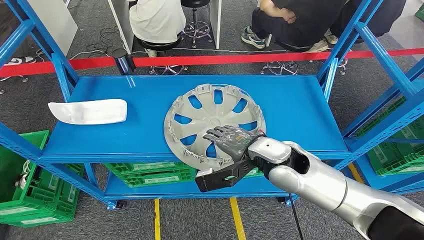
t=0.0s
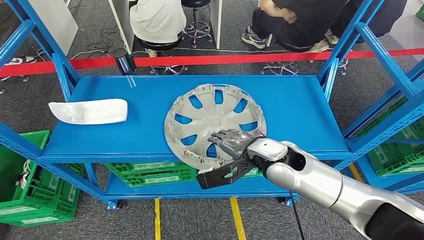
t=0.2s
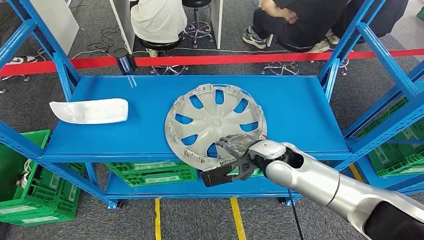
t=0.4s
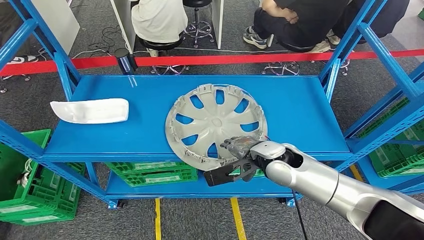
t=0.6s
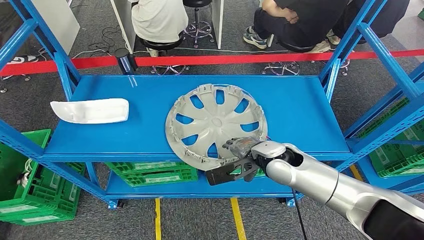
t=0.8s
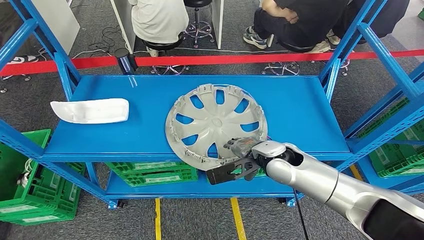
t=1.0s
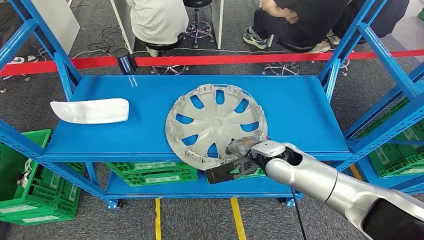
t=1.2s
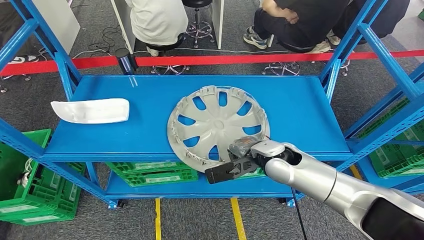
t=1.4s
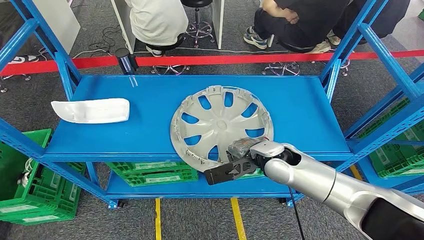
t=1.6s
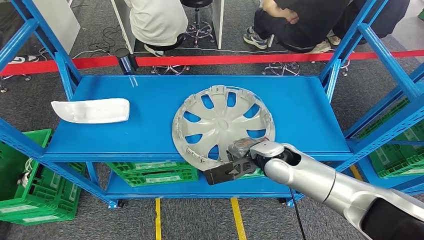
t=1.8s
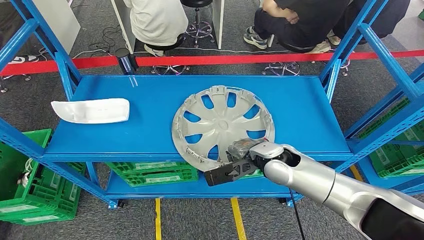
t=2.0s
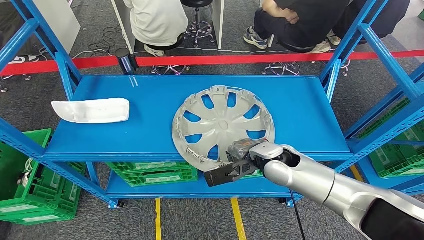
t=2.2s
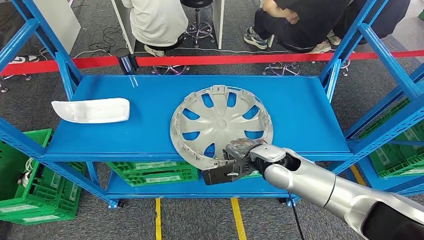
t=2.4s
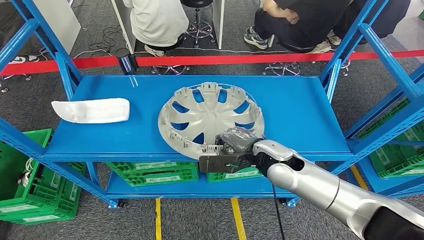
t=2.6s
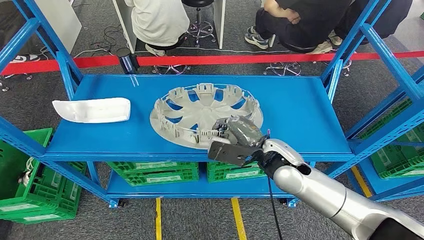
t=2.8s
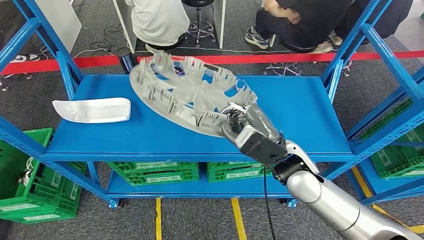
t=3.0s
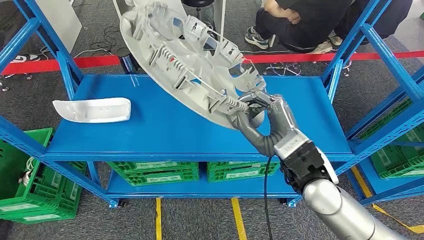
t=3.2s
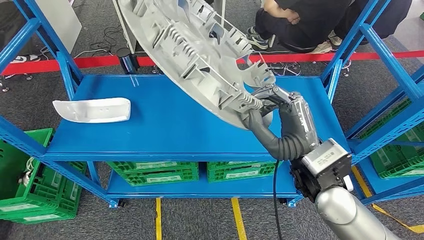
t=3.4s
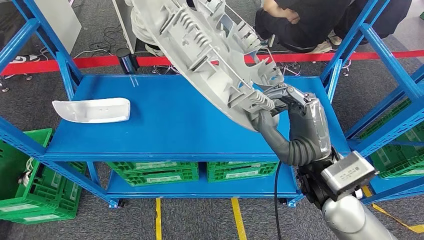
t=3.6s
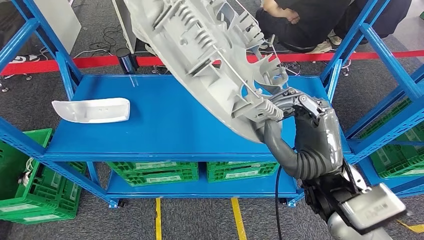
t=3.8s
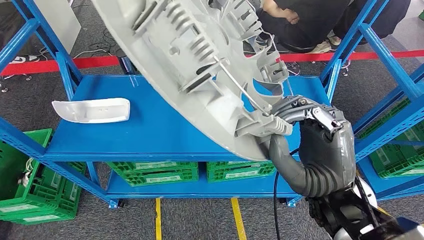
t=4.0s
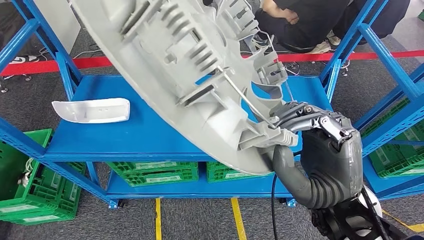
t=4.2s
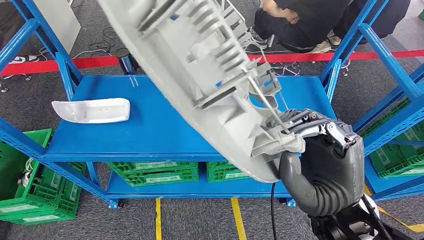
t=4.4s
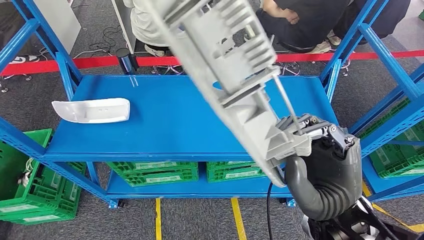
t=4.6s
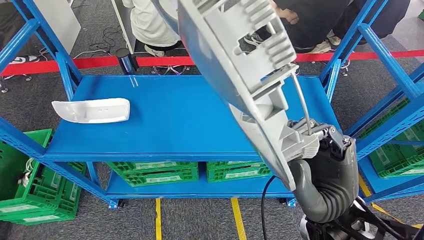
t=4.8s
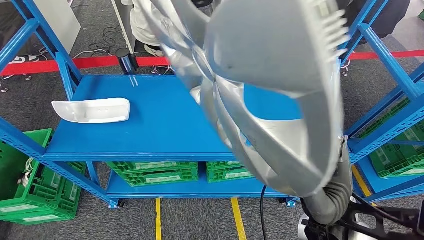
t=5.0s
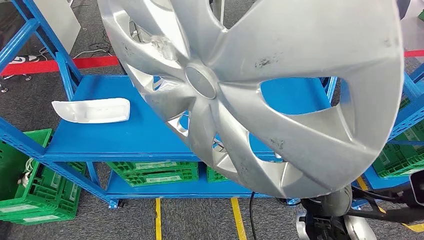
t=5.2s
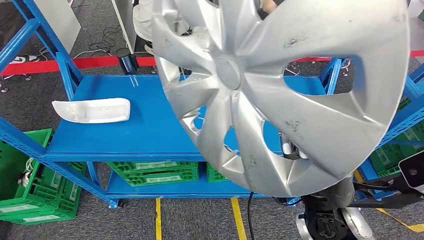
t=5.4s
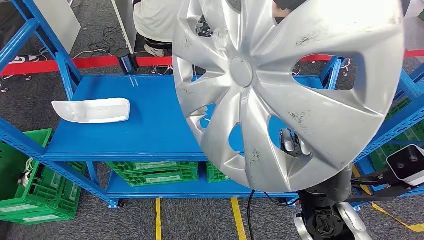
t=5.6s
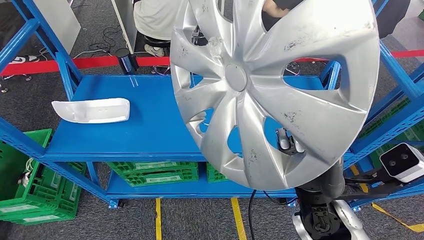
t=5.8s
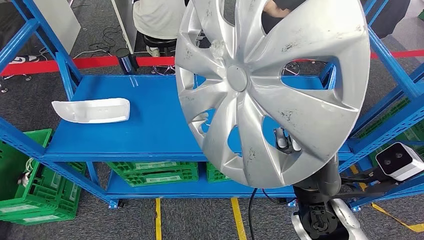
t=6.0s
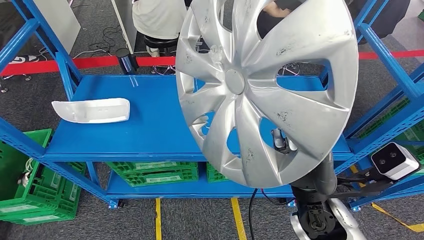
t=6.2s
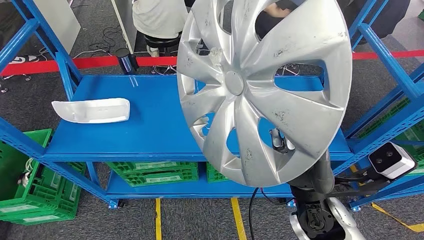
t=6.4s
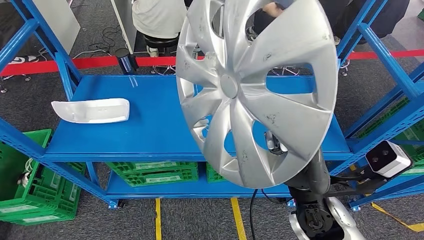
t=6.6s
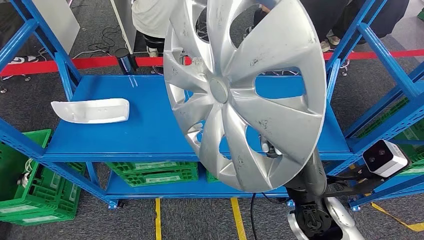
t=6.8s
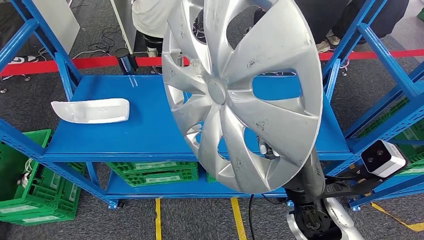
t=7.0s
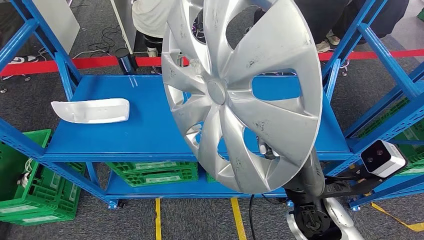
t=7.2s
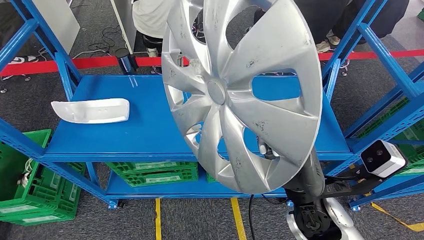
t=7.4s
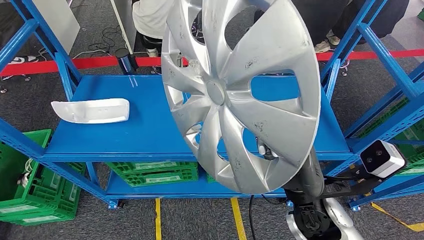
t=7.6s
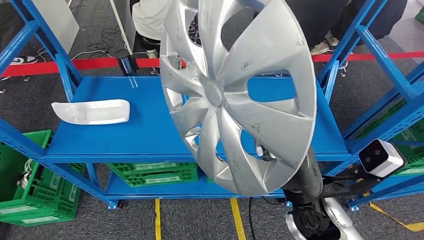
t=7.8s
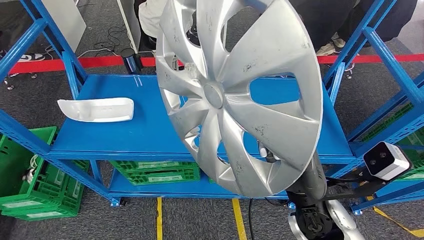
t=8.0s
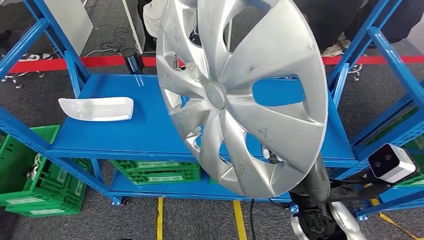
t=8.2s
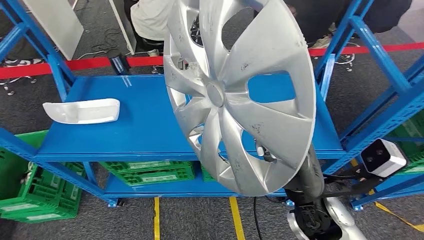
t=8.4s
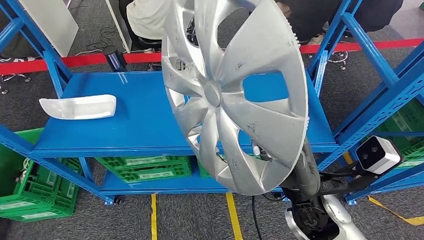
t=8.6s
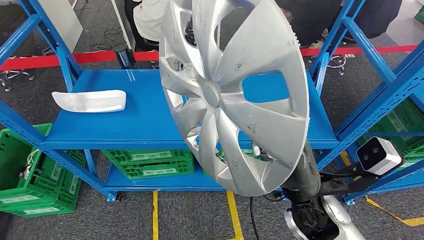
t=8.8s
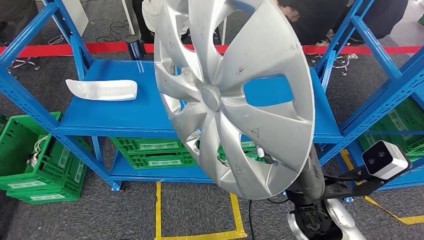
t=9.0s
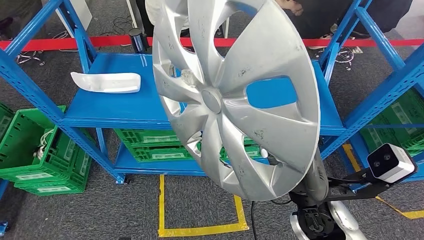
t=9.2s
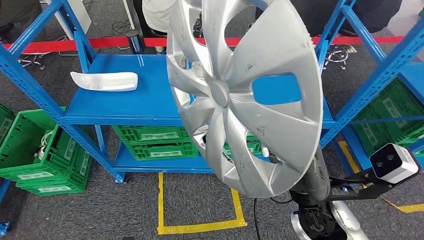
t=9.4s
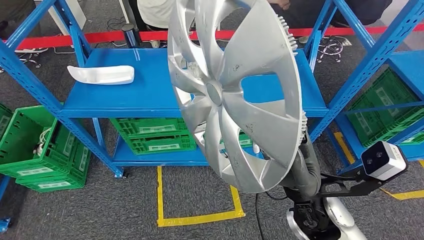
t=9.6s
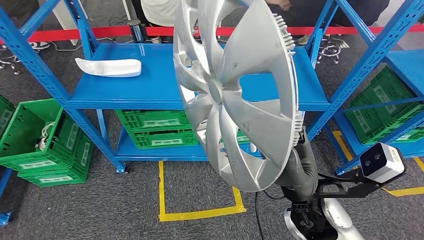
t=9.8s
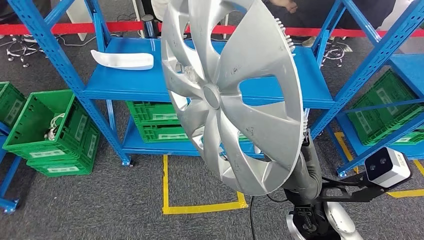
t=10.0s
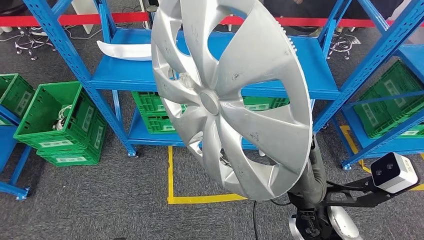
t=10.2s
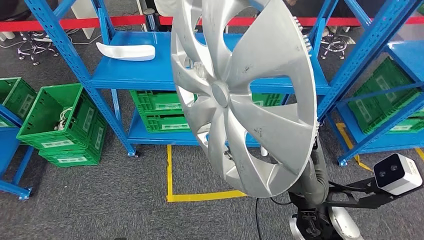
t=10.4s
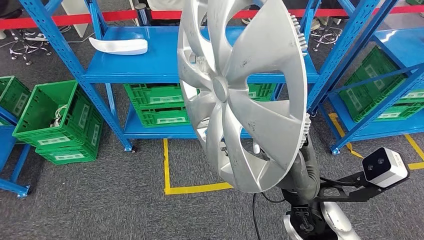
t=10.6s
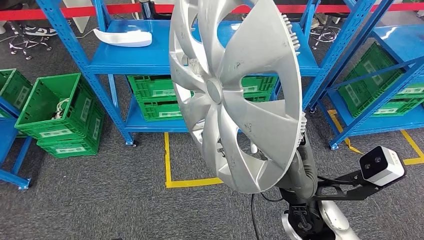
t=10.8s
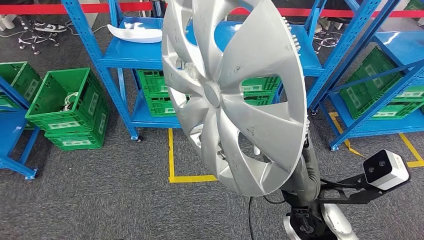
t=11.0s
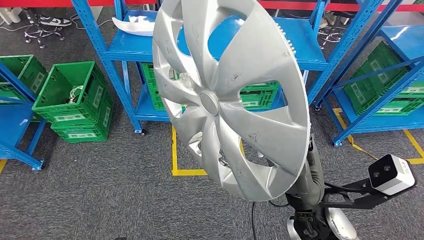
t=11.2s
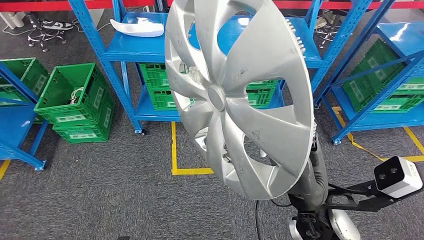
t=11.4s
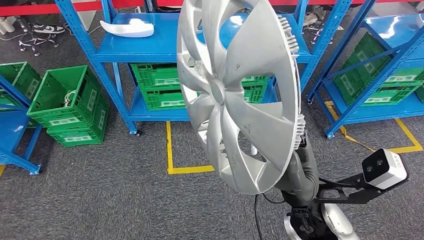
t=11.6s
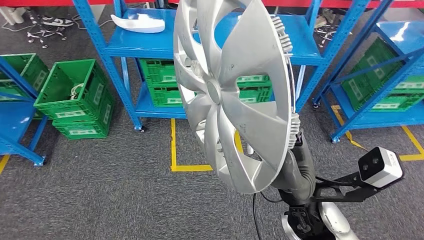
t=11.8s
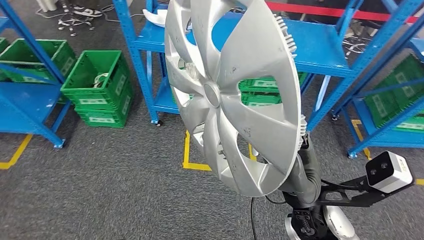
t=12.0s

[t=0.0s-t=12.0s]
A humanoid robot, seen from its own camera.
Step, t=0.0s to t=5.4s: Pick up the small component from the shelf.

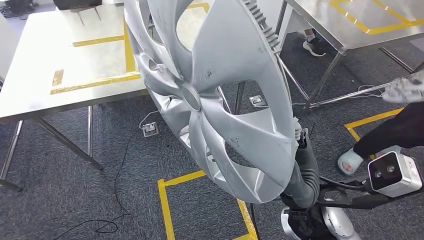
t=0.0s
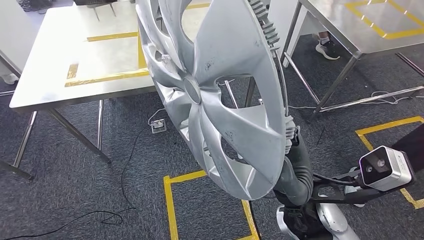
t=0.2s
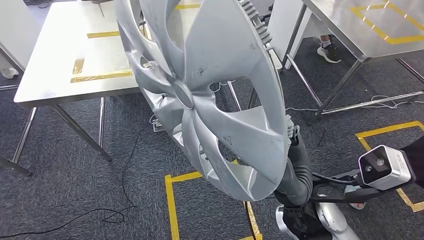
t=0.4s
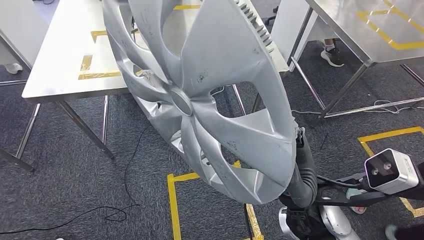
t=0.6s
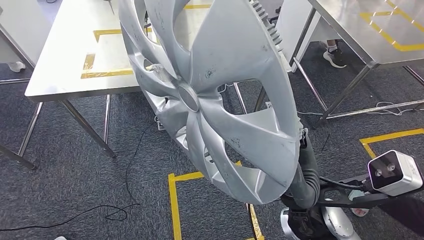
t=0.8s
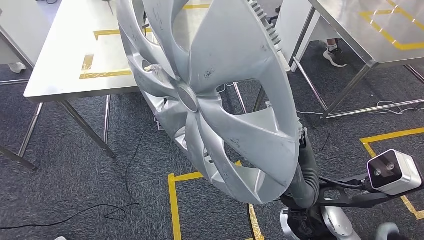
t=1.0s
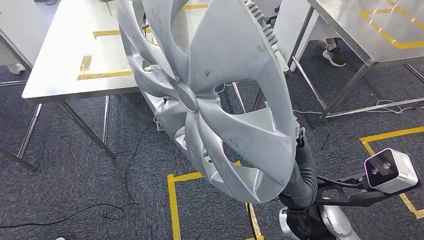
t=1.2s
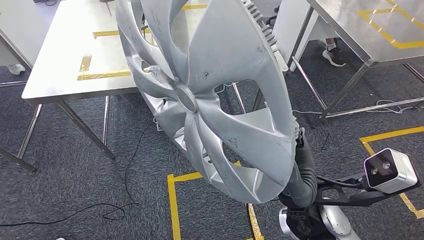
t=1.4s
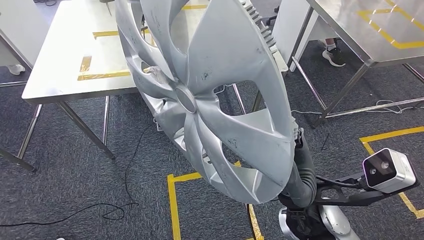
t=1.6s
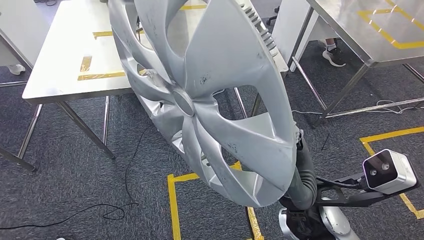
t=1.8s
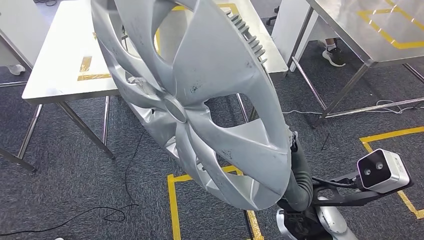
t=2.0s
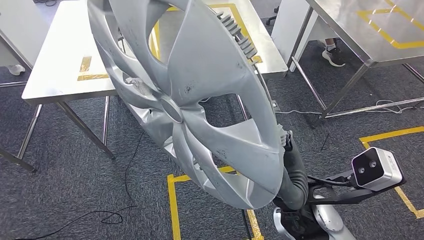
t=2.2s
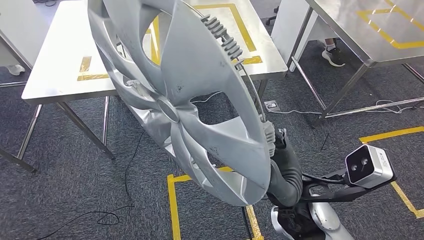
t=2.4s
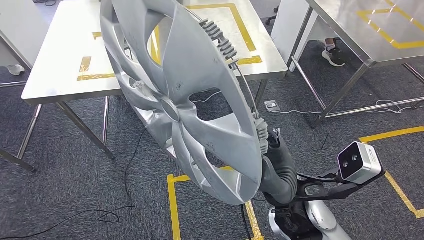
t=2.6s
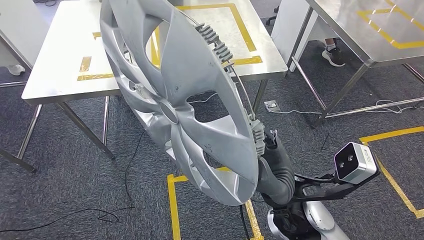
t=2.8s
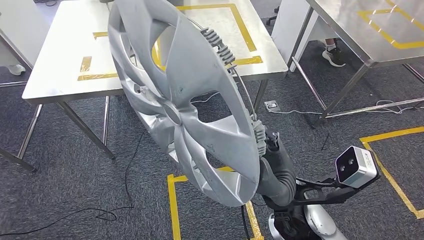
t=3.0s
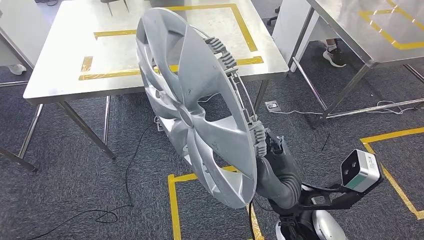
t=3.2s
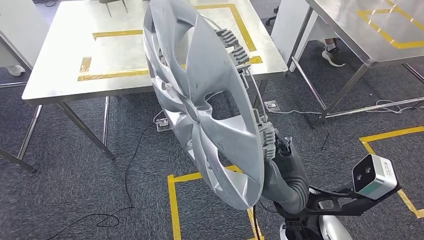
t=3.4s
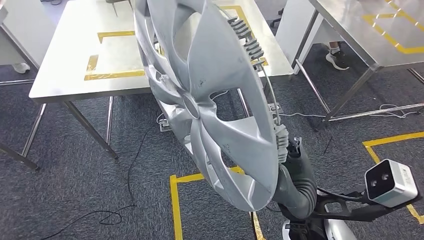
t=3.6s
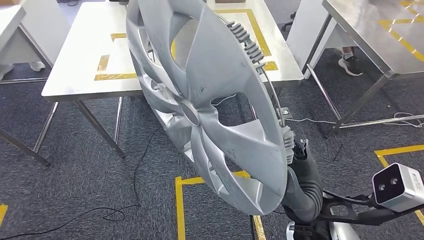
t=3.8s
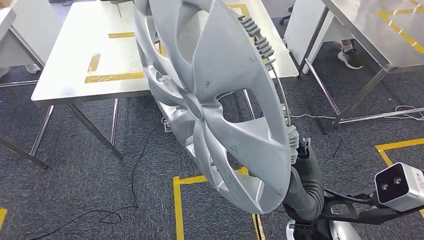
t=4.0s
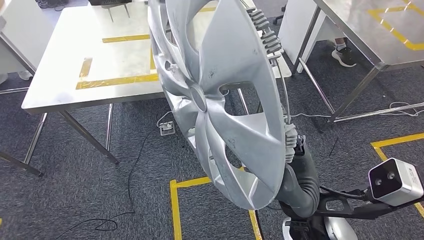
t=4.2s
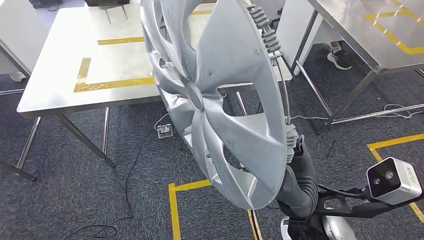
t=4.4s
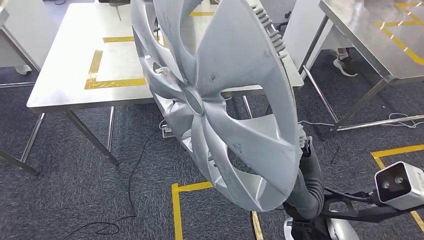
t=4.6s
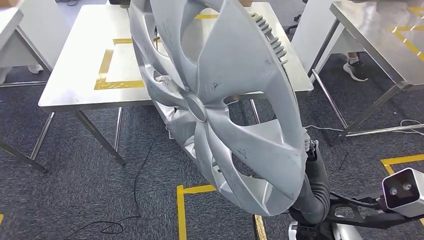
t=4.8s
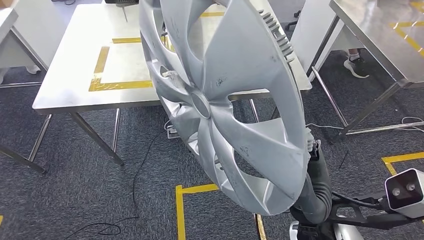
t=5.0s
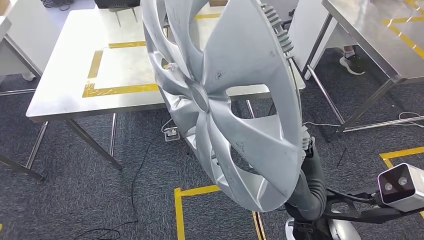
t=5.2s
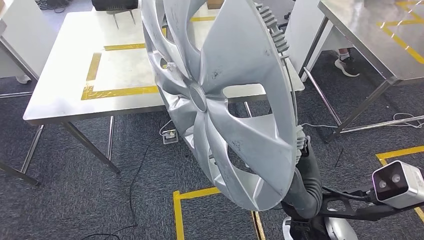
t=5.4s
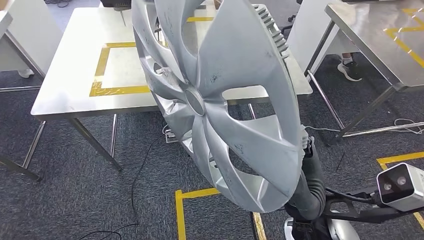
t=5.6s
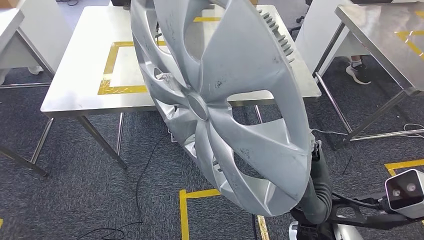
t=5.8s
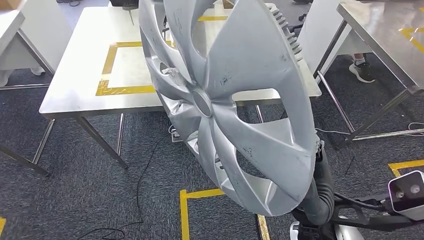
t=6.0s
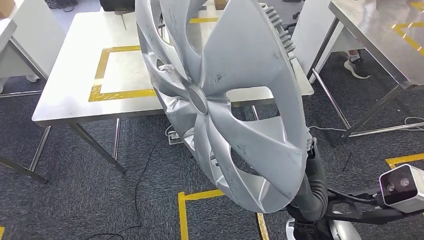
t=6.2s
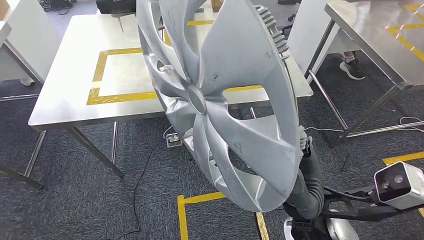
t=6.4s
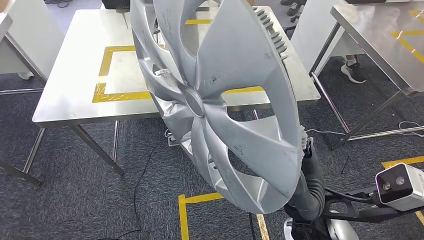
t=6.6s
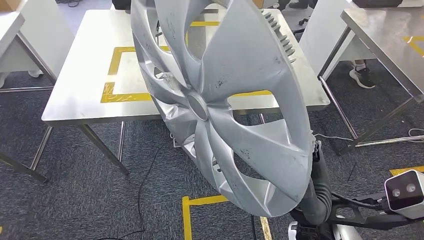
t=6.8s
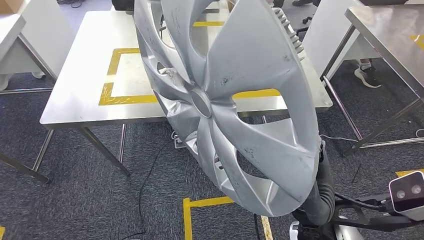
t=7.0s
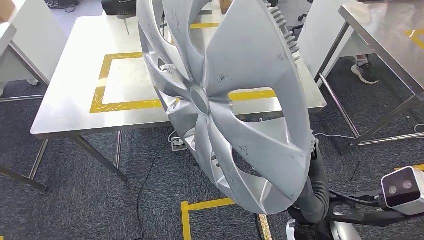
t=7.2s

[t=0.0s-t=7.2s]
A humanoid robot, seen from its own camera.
Step, t=0.0s to t=6.8s: Move the small component to the workbench.
